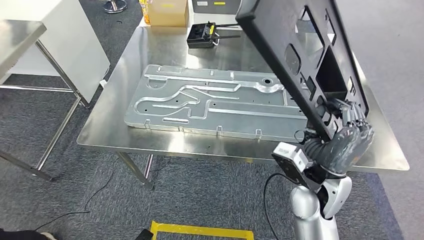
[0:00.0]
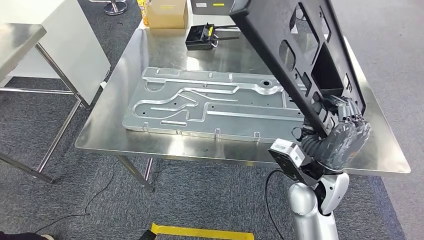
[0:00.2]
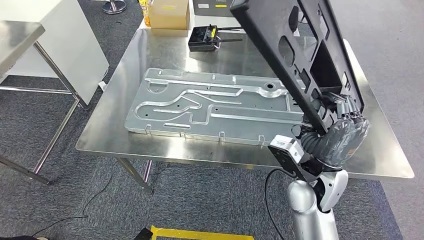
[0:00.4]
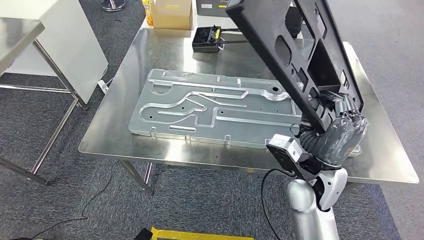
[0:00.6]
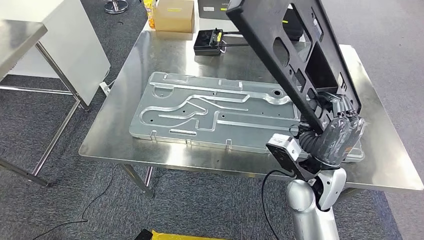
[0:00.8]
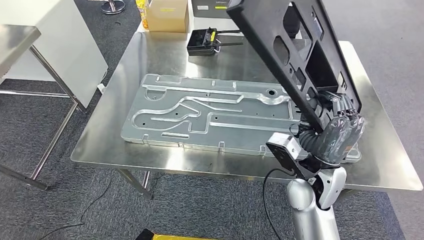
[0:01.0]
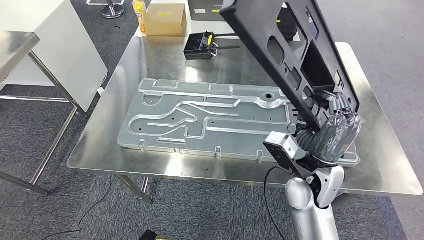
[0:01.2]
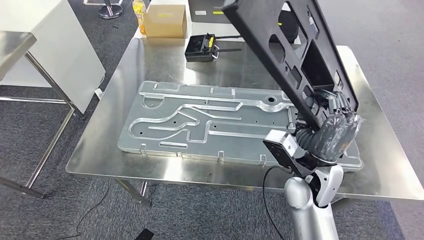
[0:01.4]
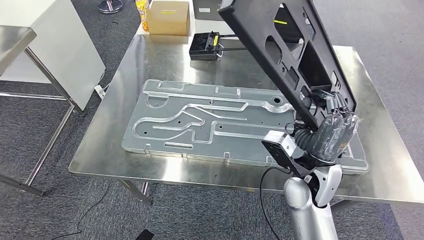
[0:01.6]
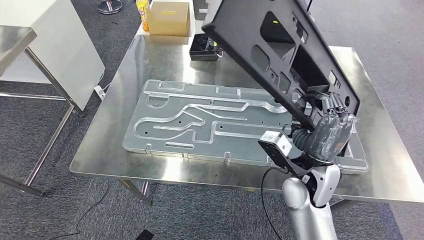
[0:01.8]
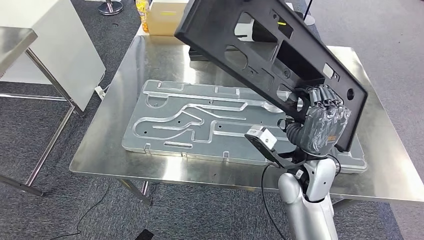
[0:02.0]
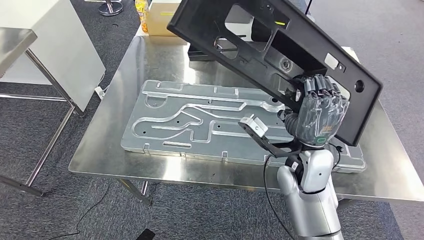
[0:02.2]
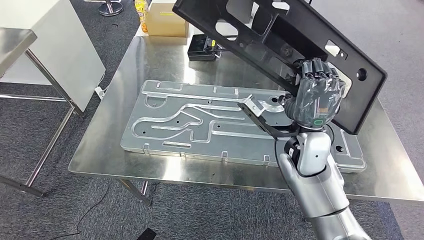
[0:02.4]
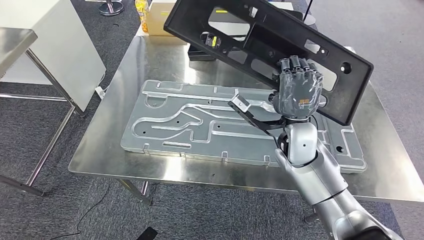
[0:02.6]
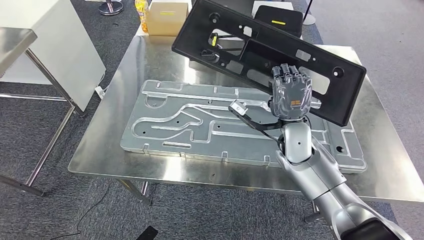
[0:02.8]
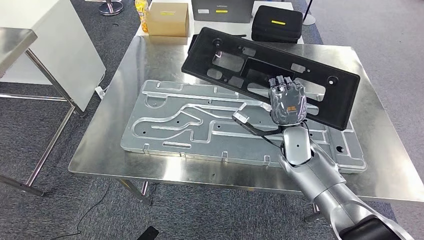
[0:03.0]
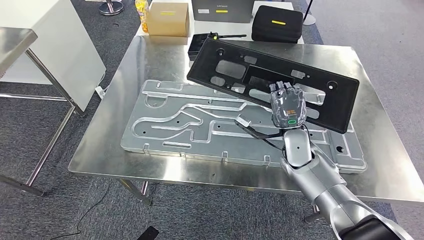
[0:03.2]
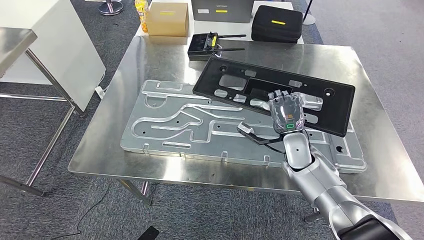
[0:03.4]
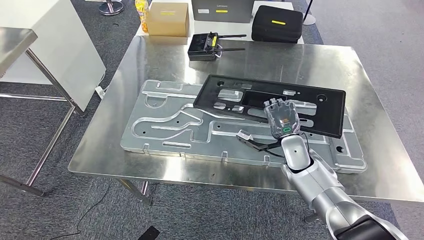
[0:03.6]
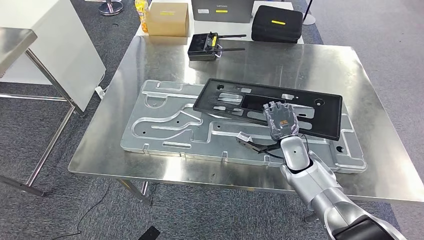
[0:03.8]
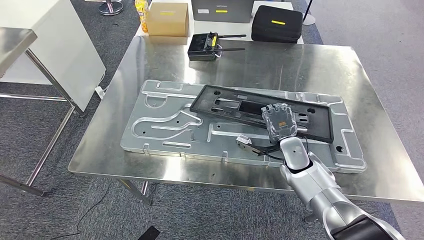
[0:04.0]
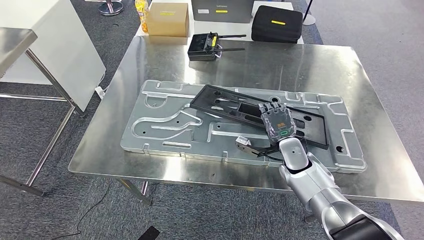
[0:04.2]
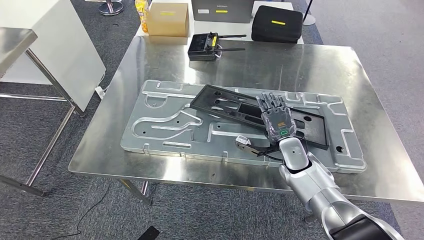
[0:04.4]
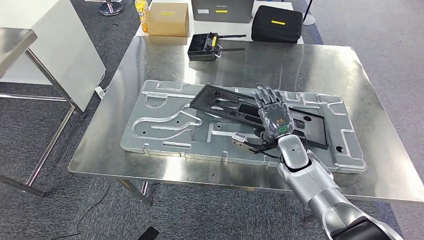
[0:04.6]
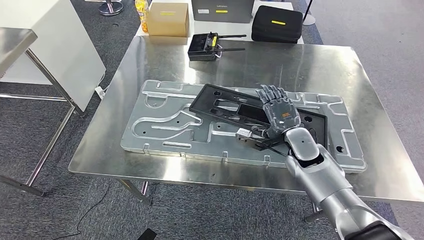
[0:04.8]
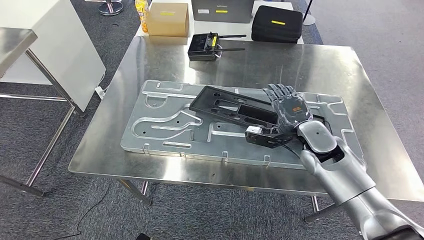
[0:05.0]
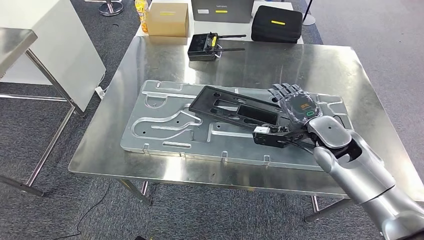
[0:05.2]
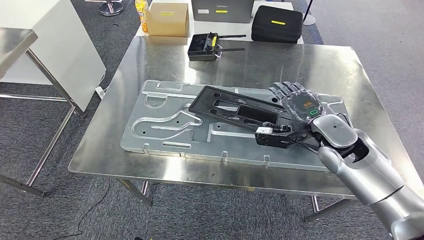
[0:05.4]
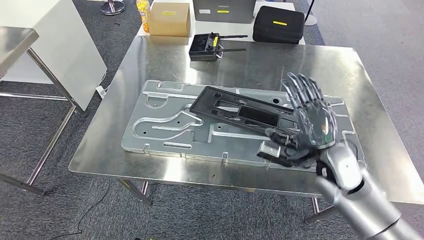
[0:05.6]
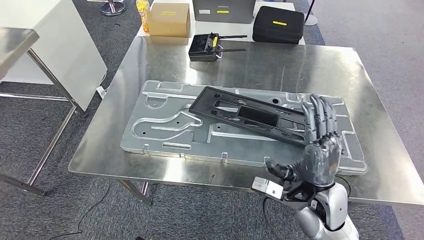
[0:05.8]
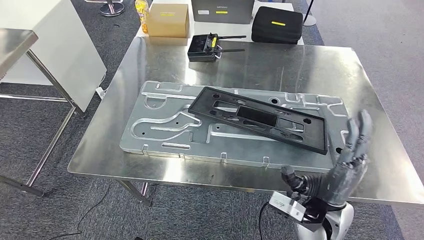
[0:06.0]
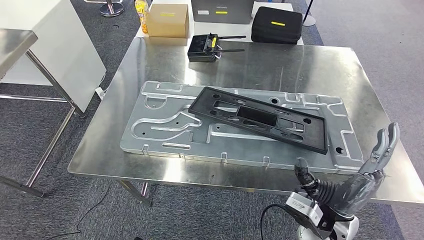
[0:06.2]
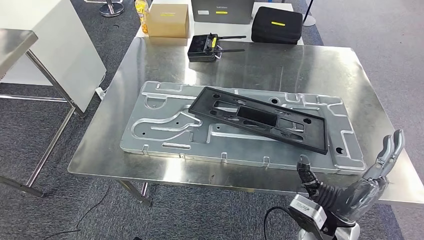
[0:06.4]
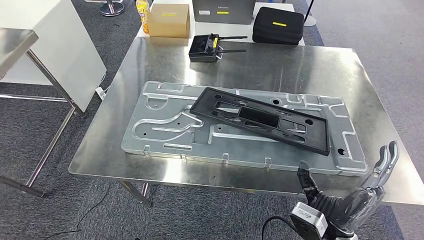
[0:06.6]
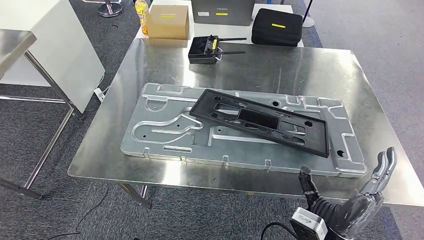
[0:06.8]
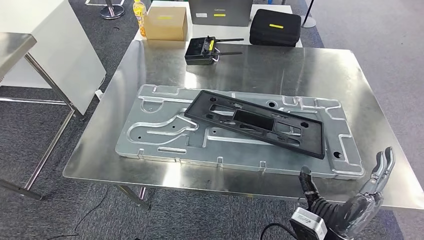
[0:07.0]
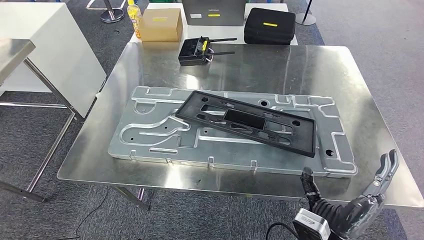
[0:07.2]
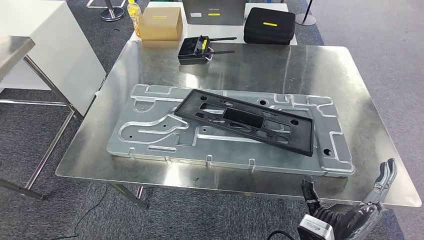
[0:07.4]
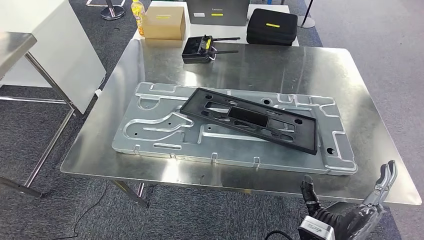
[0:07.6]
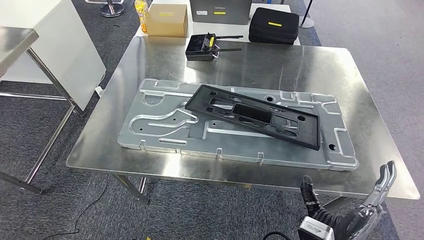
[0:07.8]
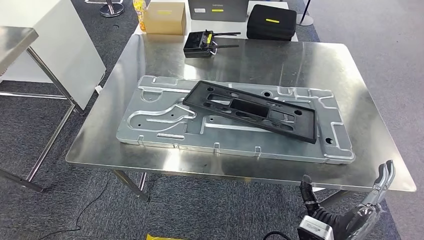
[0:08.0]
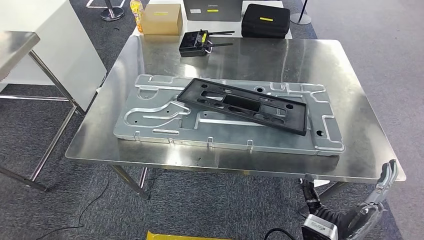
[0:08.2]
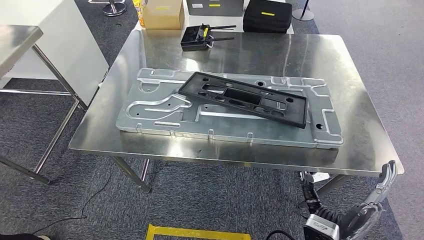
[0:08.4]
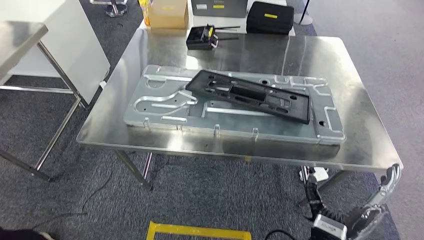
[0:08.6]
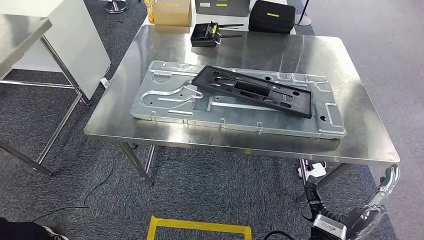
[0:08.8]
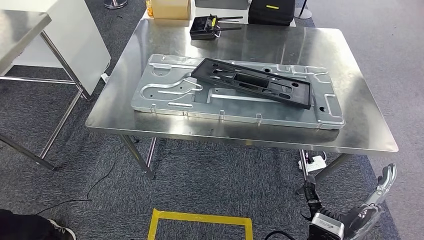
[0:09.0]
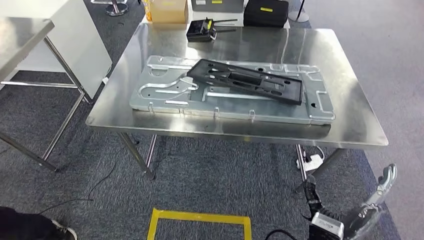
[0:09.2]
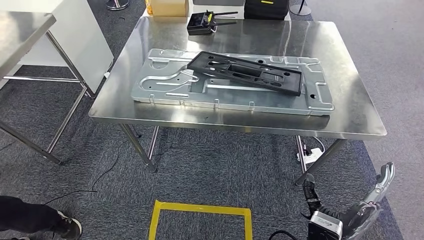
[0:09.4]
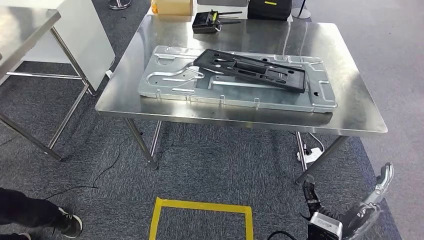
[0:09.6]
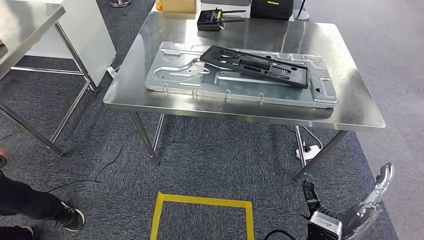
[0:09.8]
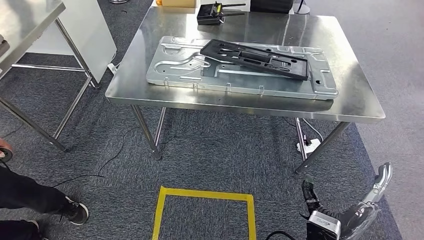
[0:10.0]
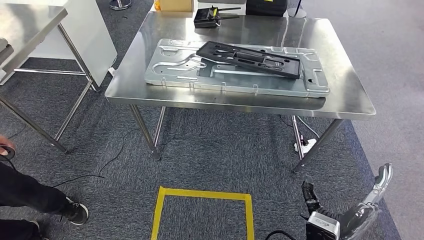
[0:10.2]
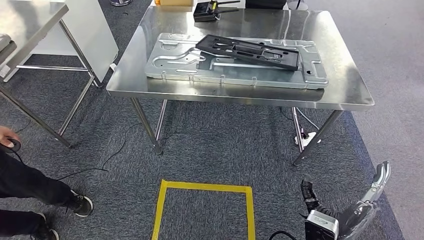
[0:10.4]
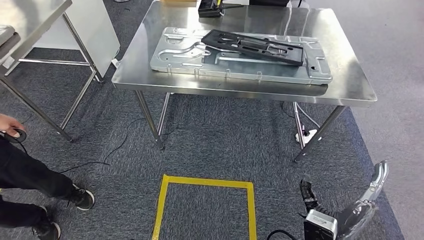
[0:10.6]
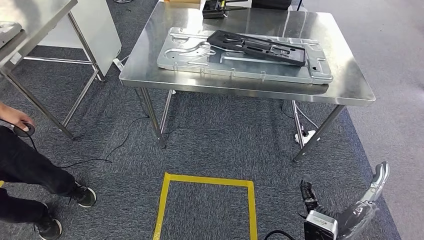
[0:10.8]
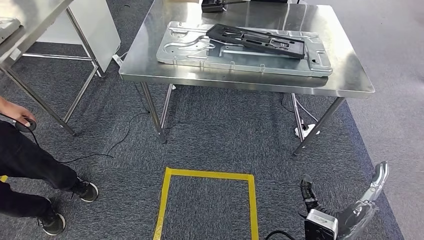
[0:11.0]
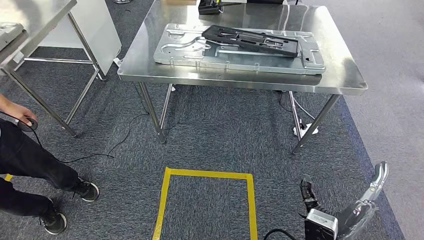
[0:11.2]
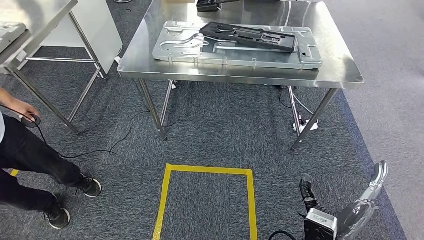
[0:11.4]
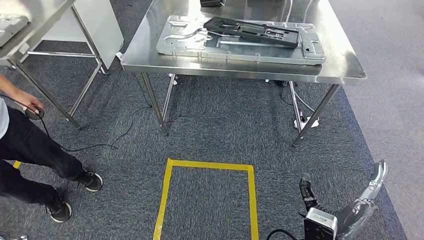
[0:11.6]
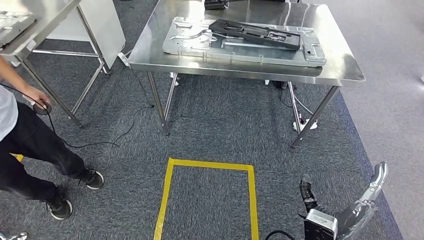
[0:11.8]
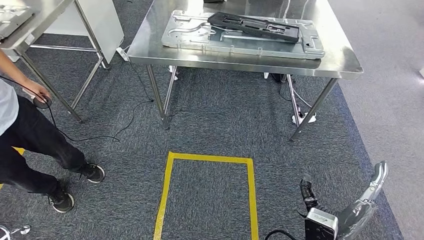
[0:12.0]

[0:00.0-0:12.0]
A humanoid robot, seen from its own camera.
Step, 0:00.2 to 0:08.8: Insert the large material into the corresponding slot on the workbench.
0:03.0 to 0:04.4: The right hand heads downward, covering some 5 cm.
0:04.4 to 0:06.0: The right hand moves backward, some 15 cm.

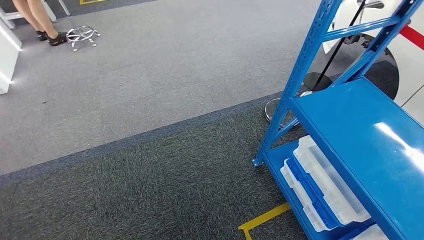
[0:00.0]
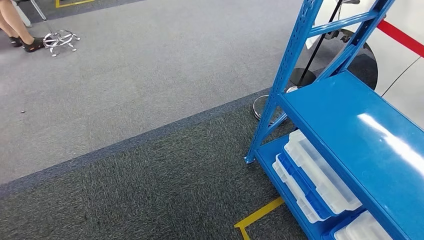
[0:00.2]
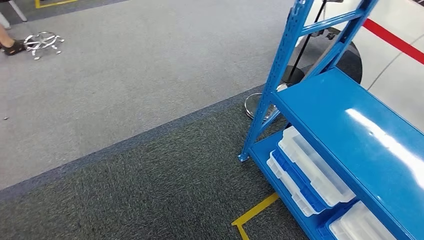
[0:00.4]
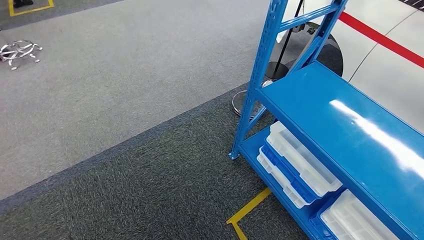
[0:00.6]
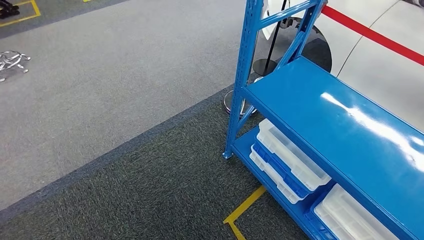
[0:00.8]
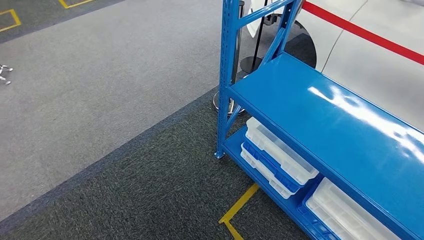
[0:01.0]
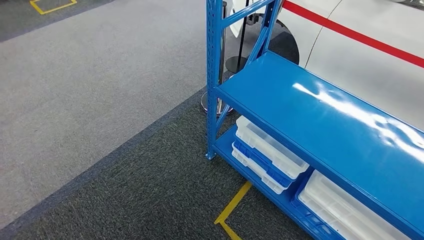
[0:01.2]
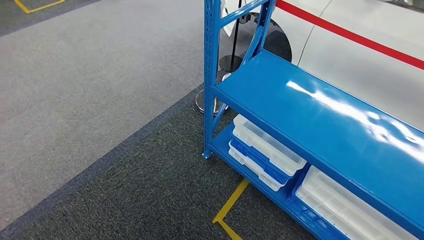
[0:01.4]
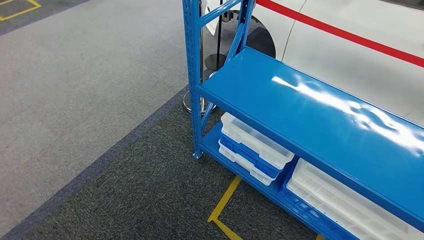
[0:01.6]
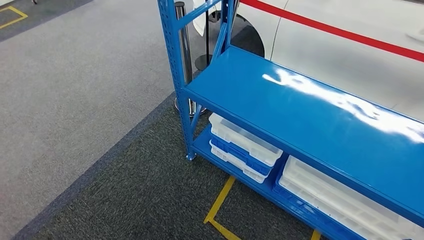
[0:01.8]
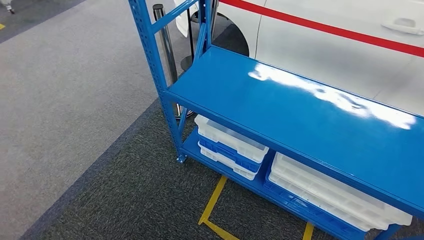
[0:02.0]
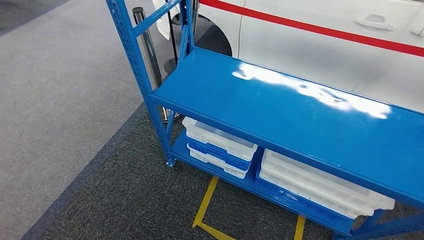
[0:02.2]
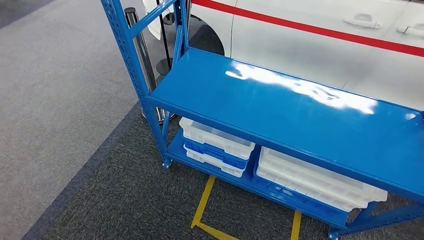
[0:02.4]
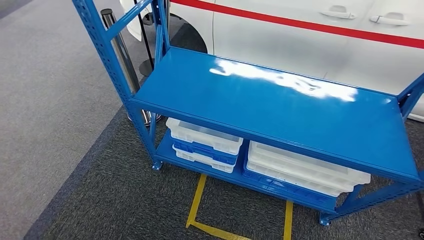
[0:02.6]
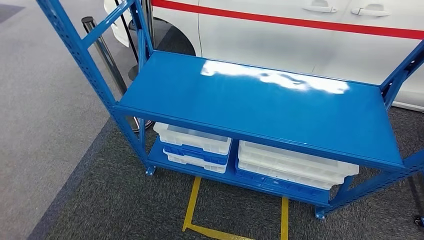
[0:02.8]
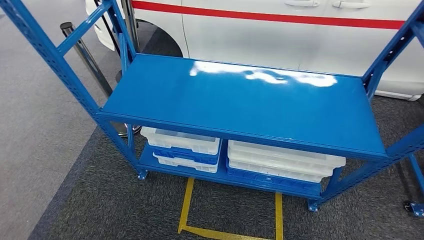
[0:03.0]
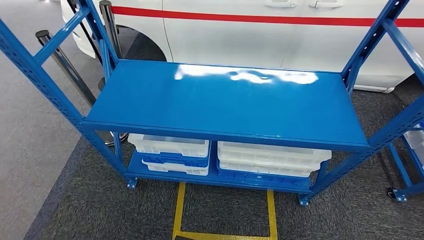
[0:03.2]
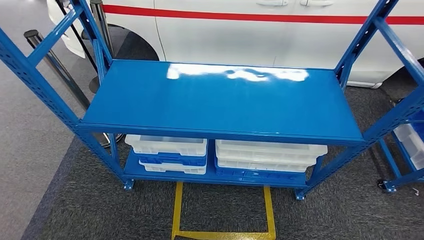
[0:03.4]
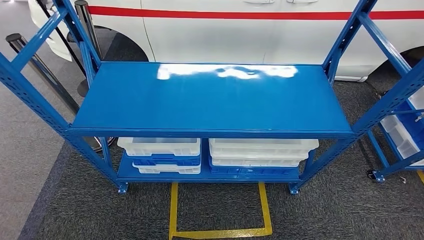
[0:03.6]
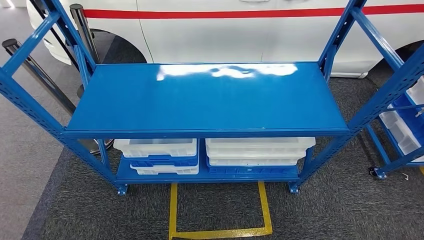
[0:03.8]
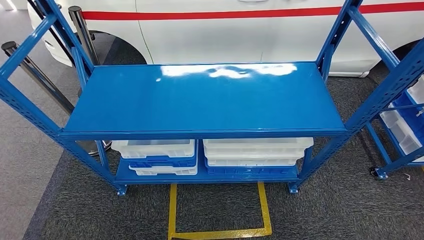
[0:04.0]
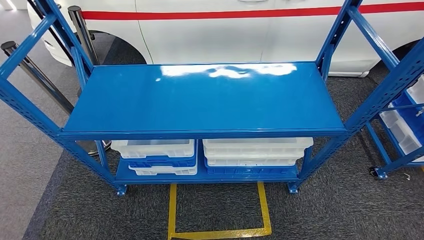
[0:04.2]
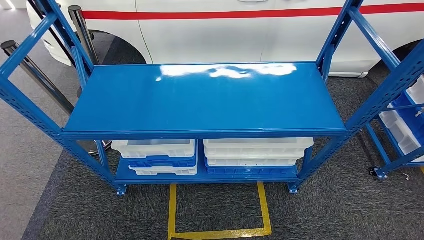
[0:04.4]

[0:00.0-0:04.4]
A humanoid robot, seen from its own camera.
Step, 0:00.0 to 0:04.4: Move to the initial position of the shelf.
